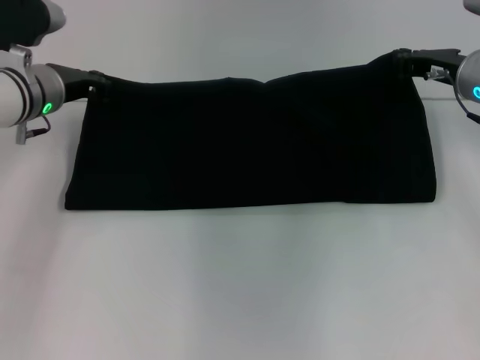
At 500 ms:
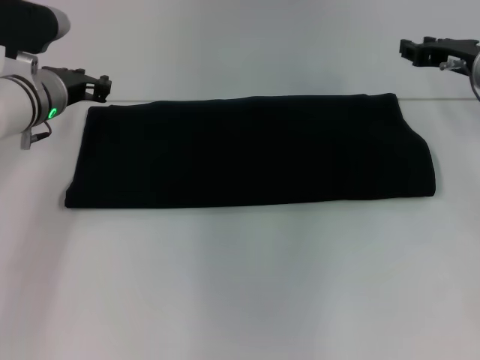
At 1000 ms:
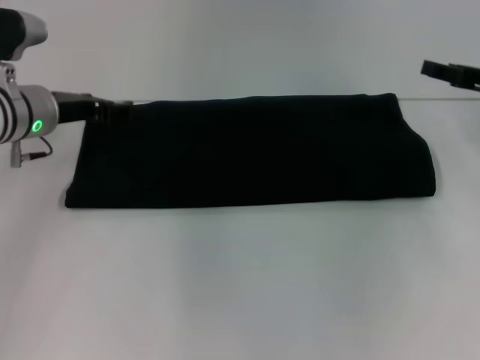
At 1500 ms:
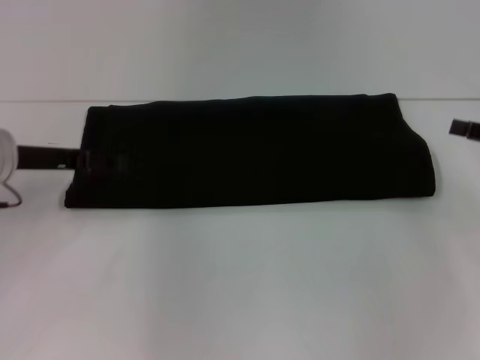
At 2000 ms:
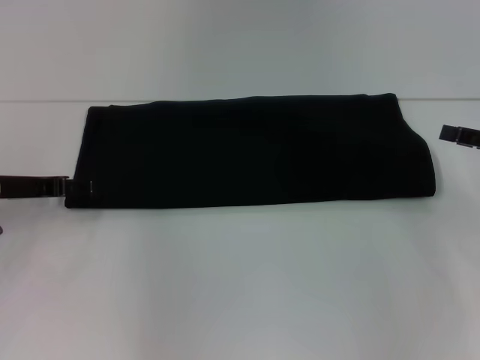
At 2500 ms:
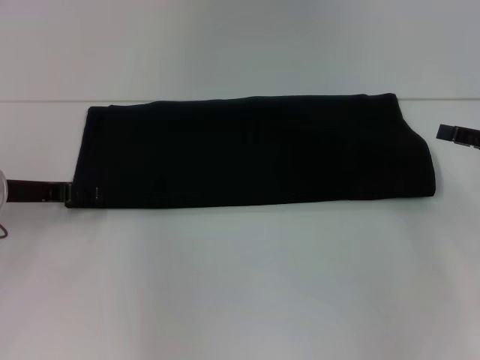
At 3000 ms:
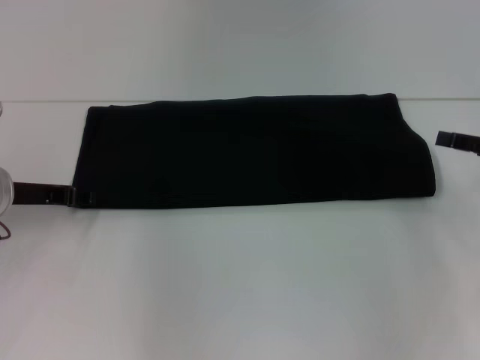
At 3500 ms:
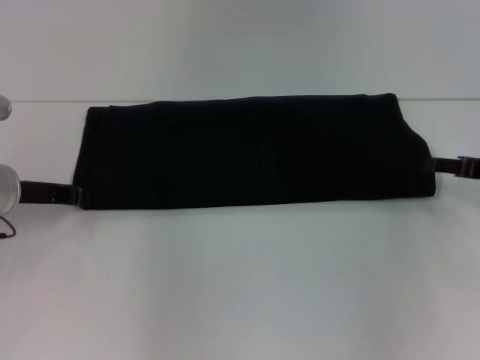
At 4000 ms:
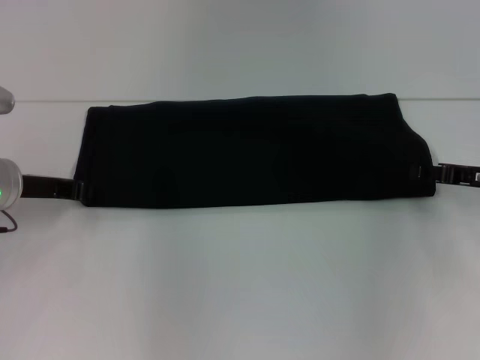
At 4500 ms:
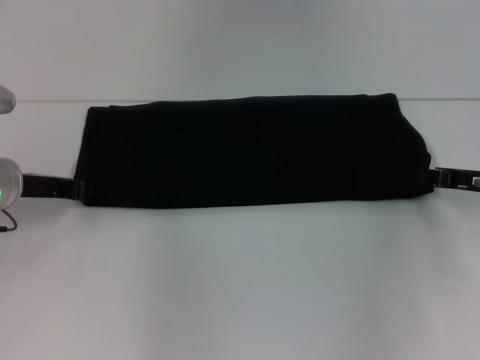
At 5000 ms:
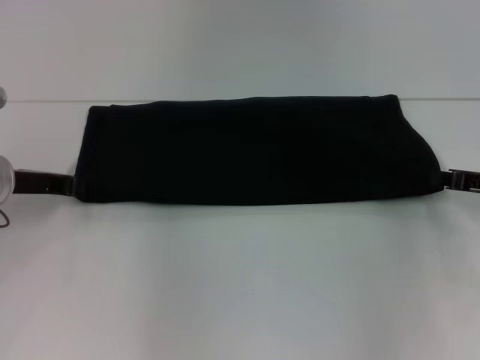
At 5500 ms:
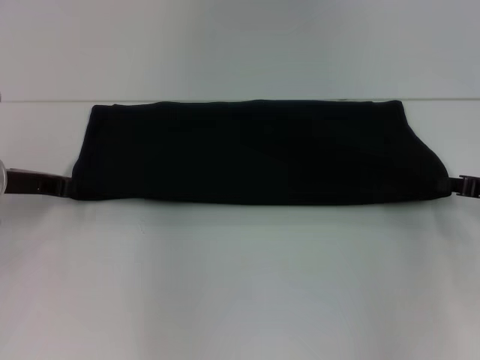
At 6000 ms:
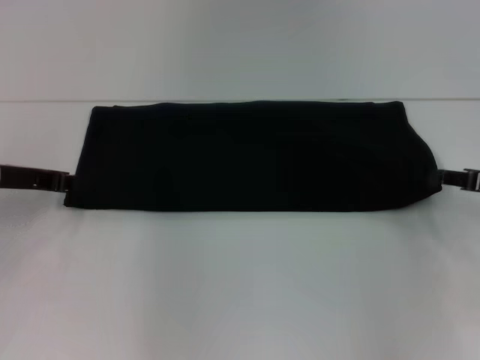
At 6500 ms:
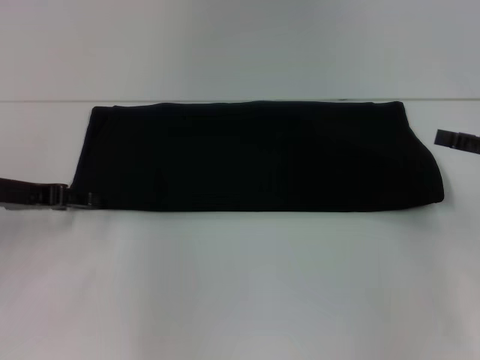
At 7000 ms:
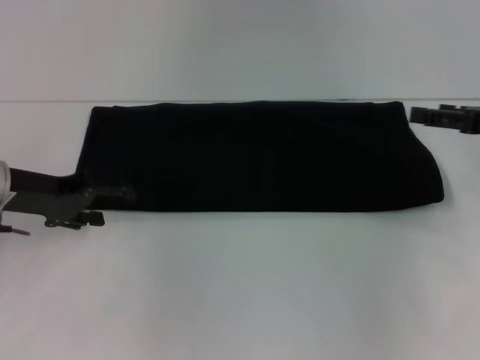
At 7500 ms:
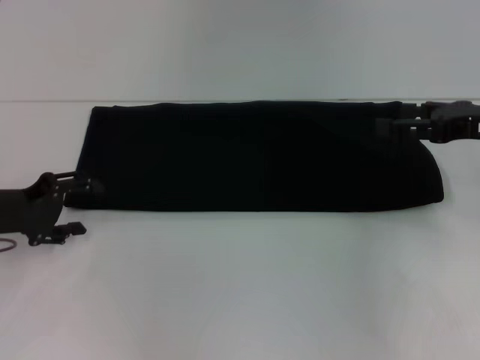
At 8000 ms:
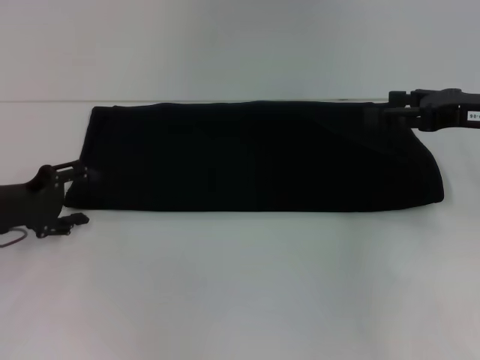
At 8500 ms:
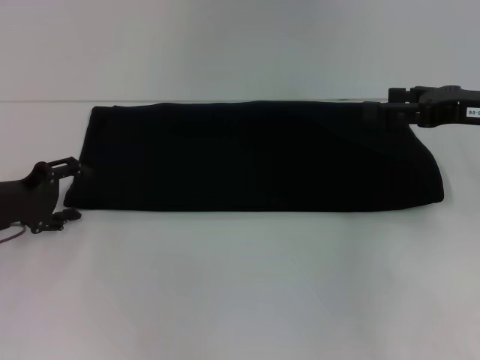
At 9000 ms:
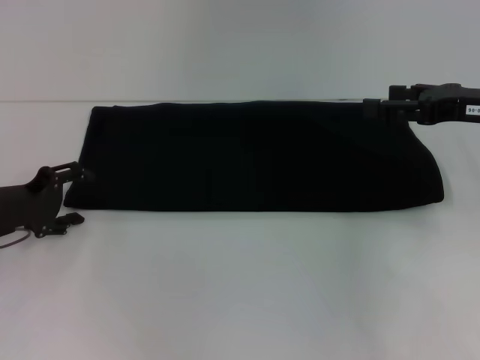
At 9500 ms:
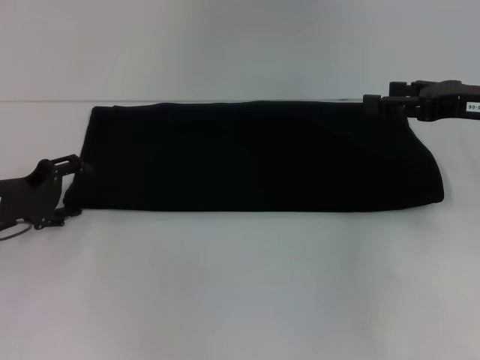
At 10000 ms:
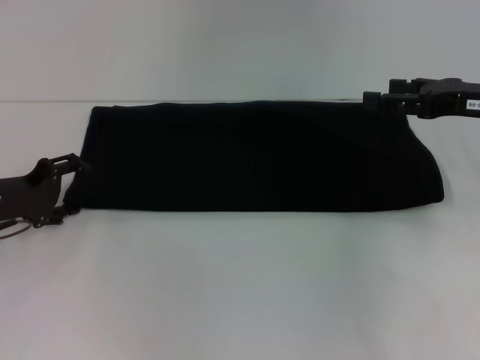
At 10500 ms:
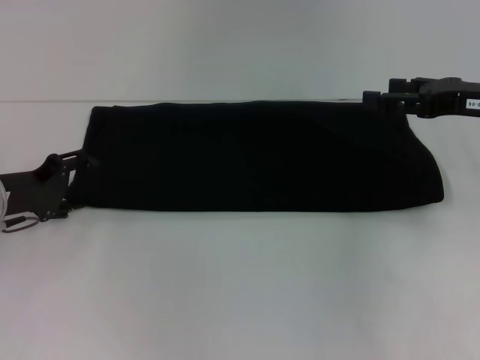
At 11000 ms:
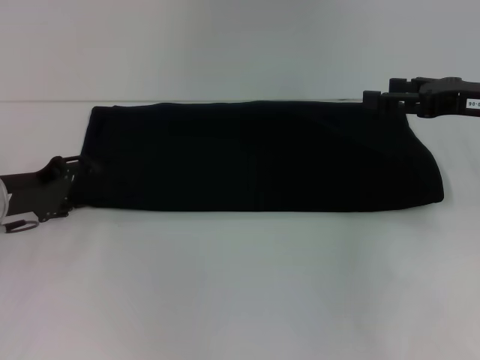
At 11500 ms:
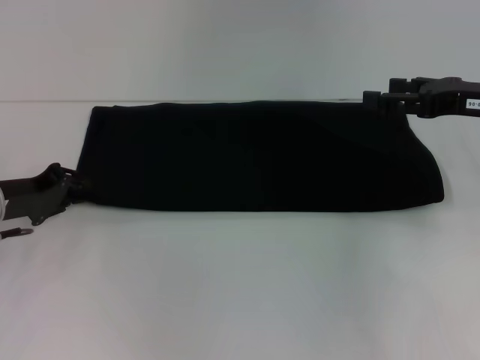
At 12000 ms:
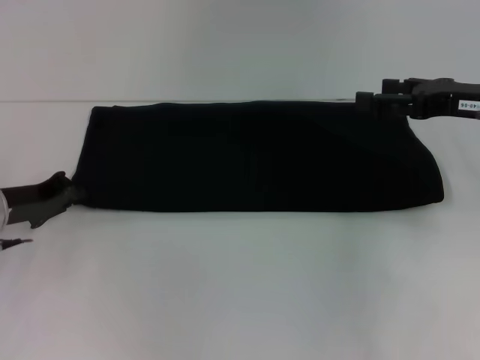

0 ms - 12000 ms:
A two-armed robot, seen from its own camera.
0 ms - 2000 ms: The right gripper heads to the right and backward, covering roughly 15 cm, and opens its fingers, while the left gripper goes approximately 10 cm backward and to the left, and opens its fingers.
2000 ms - 4000 ms: The left gripper closes up; the right gripper moves roughly 5 cm.
4000 ms - 6000 ms: The right gripper closes its fingers.
6000 ms - 8000 ms: The left gripper changes place by approximately 5 cm, and opens up; the right gripper heads upward and to the left, covering about 10 cm, and opens up.
8000 ms - 10000 ms: The grippers make only small movements.
10000 ms - 12000 ms: The left gripper closes.

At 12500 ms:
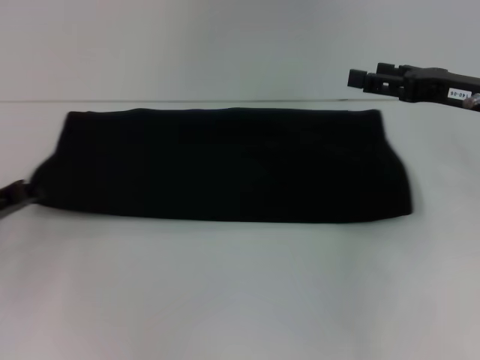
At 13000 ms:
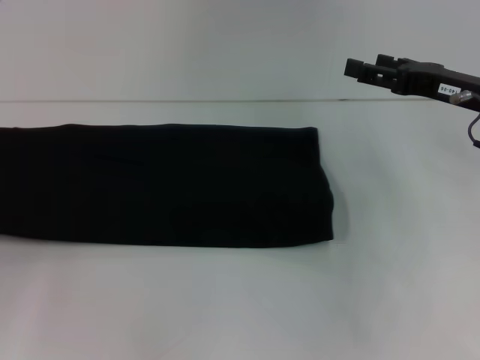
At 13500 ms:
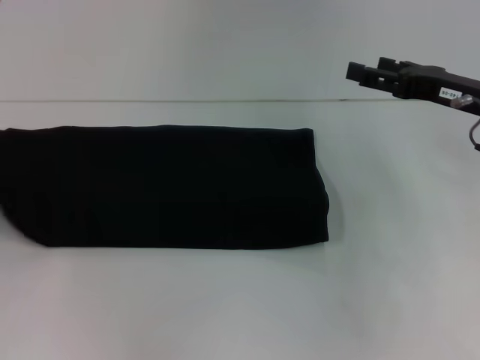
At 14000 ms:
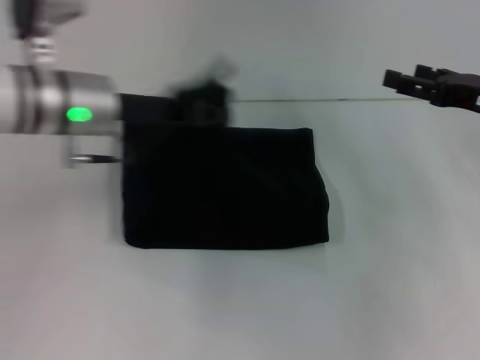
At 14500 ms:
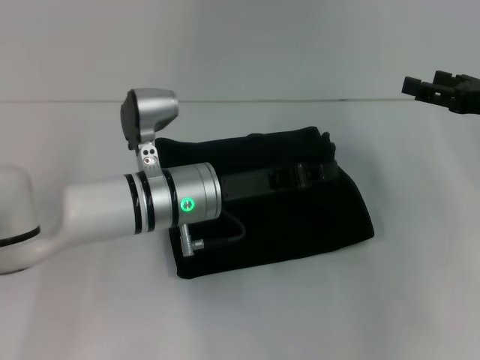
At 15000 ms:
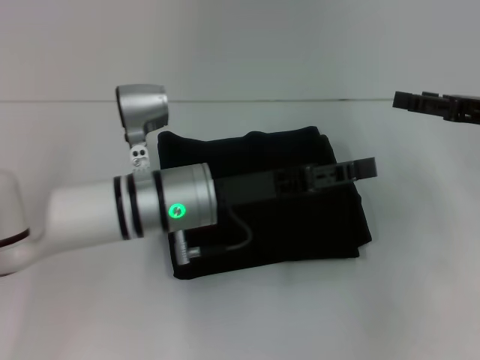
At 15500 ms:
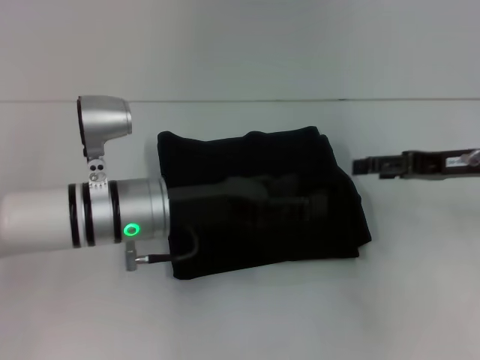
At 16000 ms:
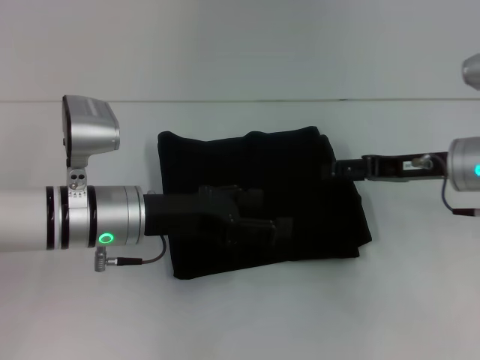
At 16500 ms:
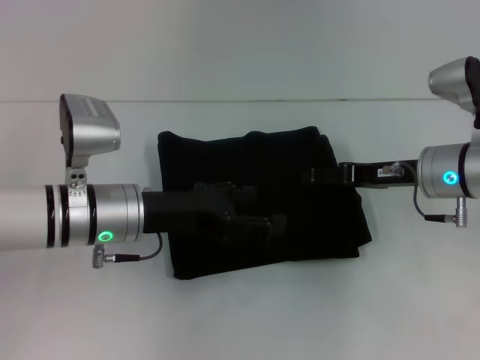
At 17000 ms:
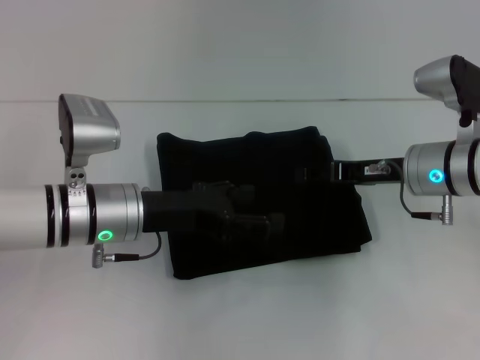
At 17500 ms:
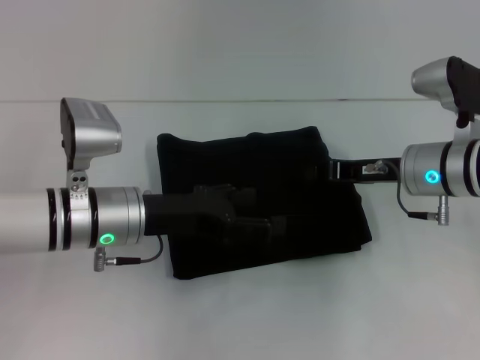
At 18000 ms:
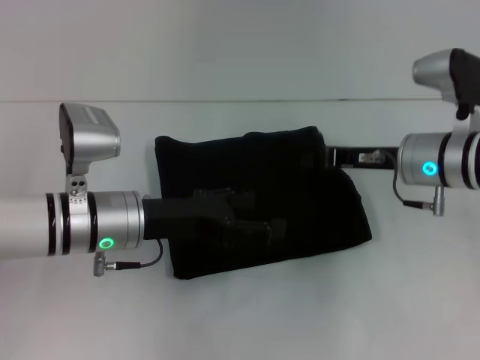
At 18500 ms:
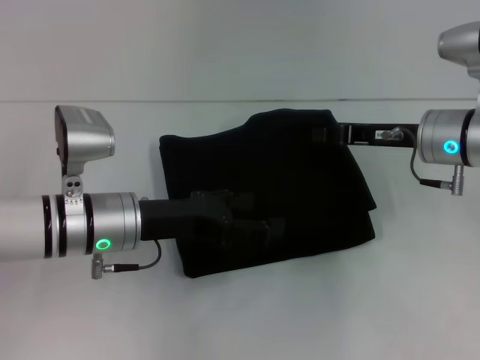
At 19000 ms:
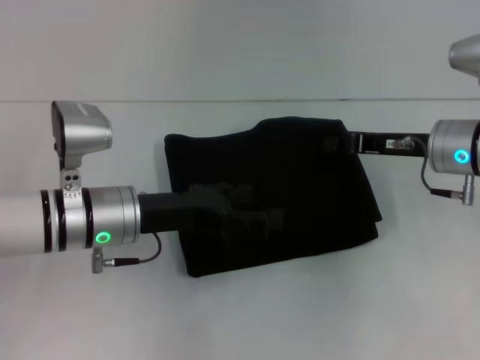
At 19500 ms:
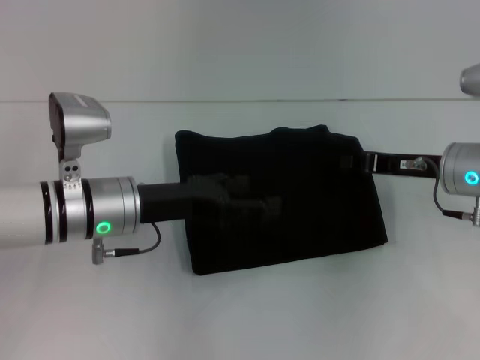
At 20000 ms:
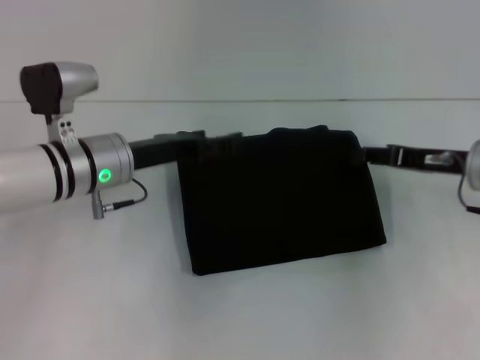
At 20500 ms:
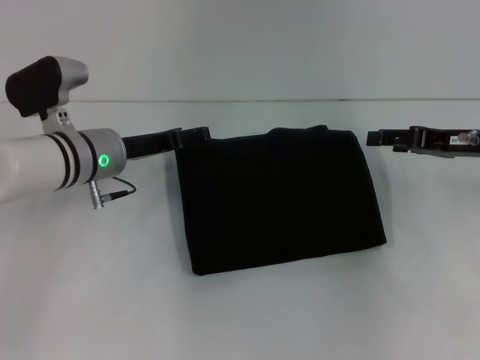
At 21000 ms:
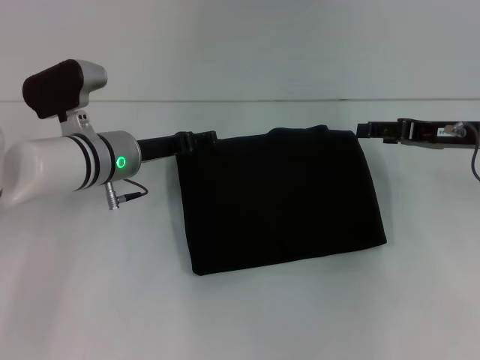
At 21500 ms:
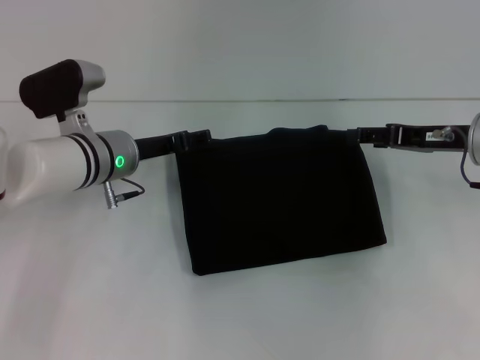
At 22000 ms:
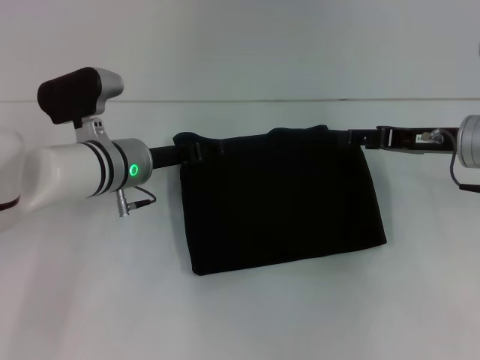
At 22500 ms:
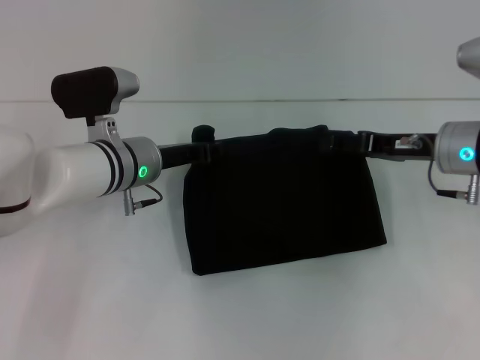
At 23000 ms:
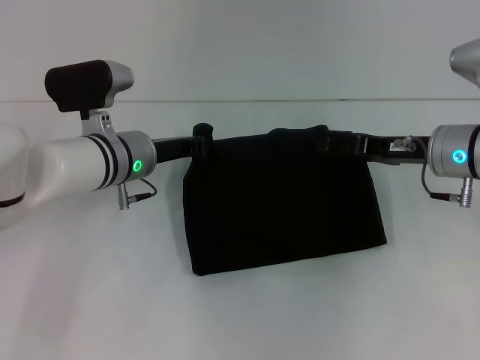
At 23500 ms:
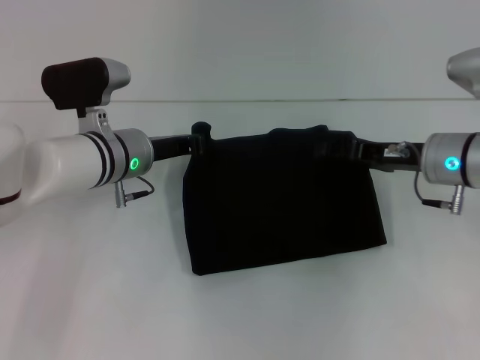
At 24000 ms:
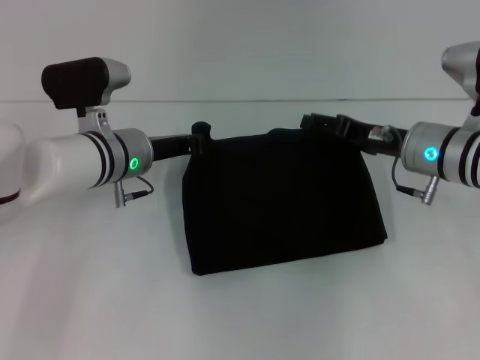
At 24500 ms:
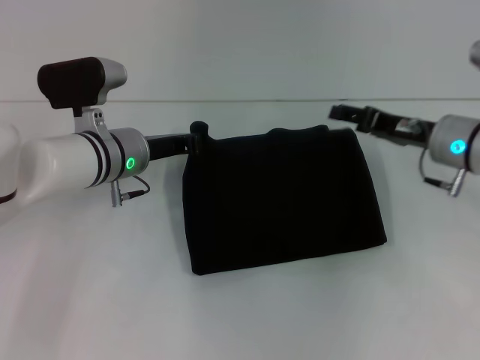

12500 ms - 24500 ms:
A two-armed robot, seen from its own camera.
Step, 12500 ms - 15000 ms: Fold the clothes with your left hand.
12500 ms - 14500 ms: The right gripper shifts by approximately 5 cm; the left gripper heads to the right, covering some 25 cm.
14500 ms - 16500 ms: The two grippers go roughly 10 cm to the left. The left gripper opens its fingers.
16500 ms - 18500 ms: The right gripper closes up.
18500 ms - 20500 ms: The right gripper travels to the right by roughly 5 cm, and opens its fingers, while the left gripper travels forward by approximately 10 cm.
20500 ms - 22500 ms: The left gripper closes up; the right gripper is displaced to the left by roughly 5 cm.
22500 ms - 24500 ms: The left gripper closes up.

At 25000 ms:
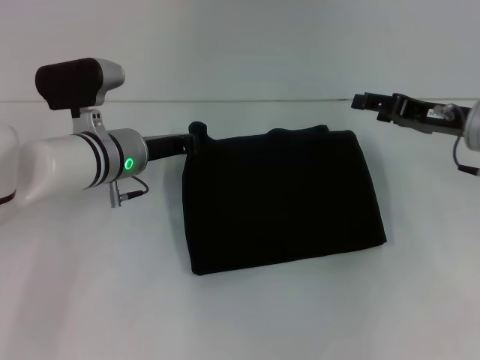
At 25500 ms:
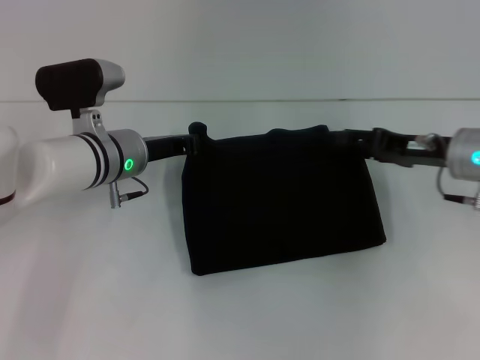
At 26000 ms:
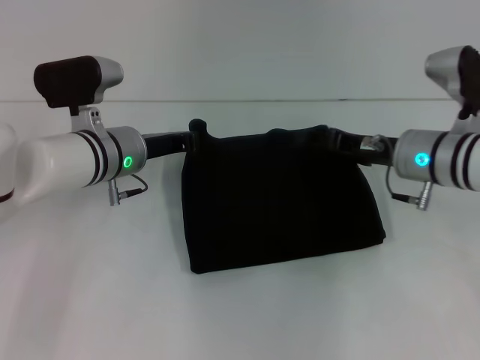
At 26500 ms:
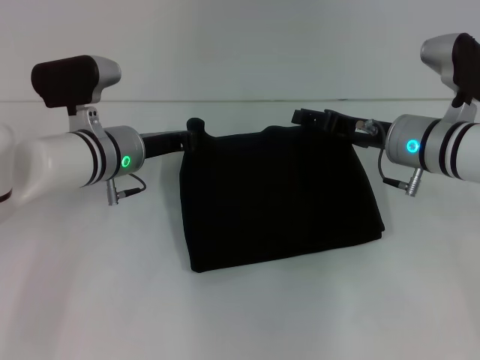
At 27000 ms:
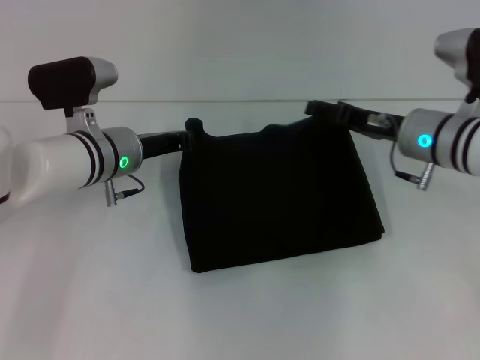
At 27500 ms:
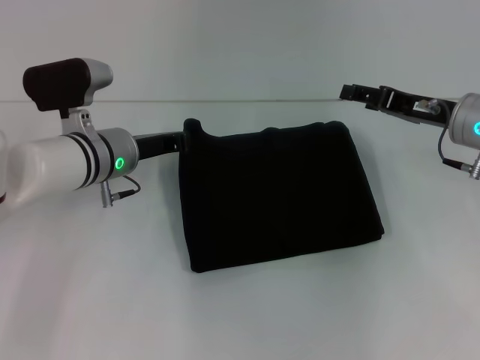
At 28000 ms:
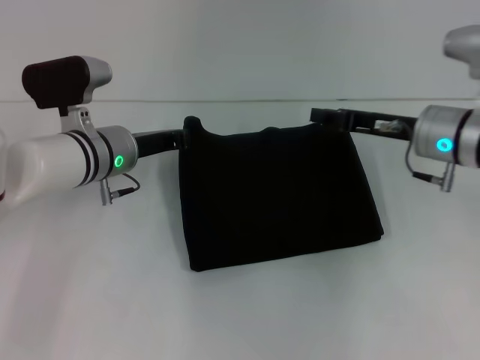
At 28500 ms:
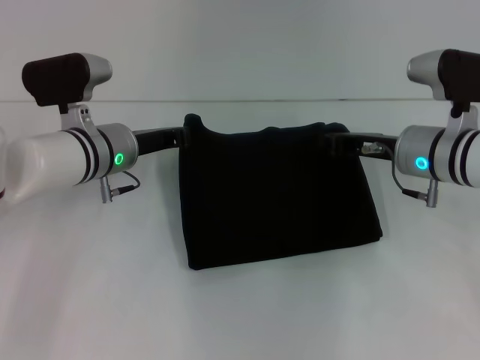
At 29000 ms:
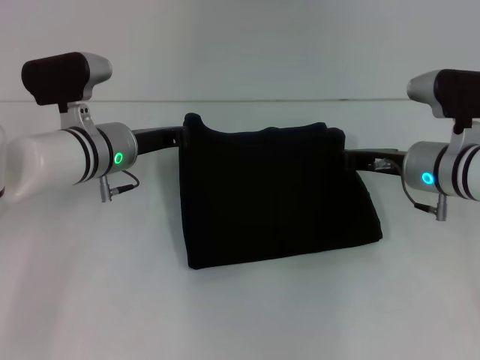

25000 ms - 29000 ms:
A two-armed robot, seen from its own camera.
25000 ms - 27000 ms: The right gripper moves to the left, roughly 5 cm.
27000 ms - 29000 ms: The right gripper closes its fingers.
